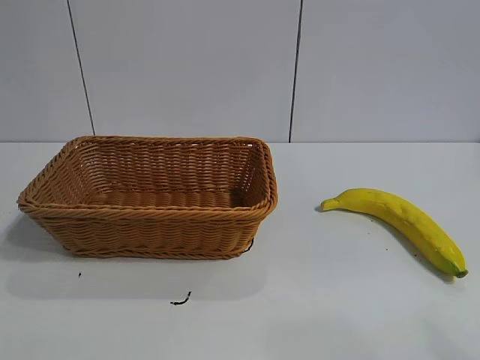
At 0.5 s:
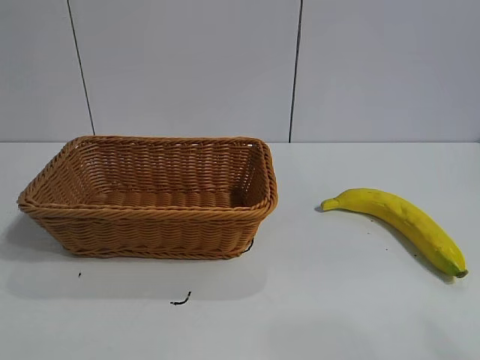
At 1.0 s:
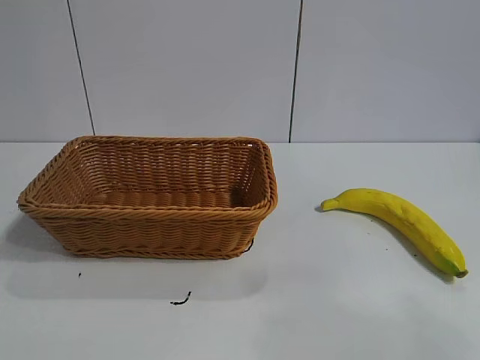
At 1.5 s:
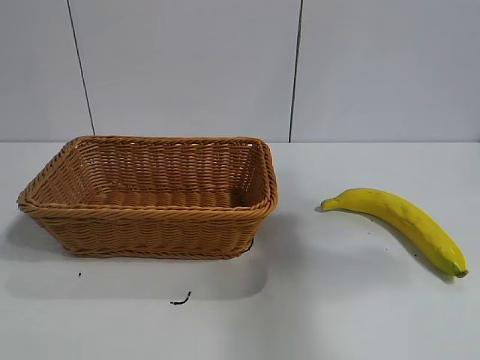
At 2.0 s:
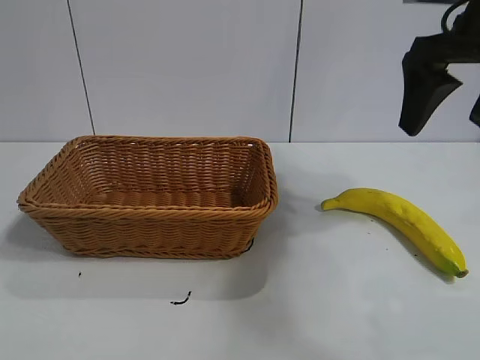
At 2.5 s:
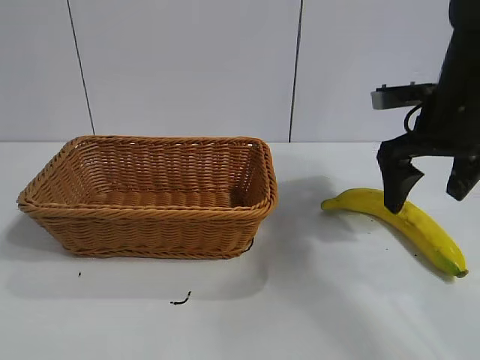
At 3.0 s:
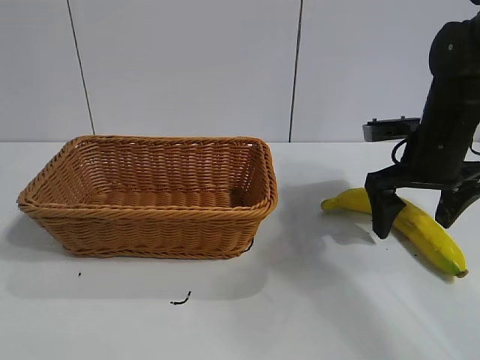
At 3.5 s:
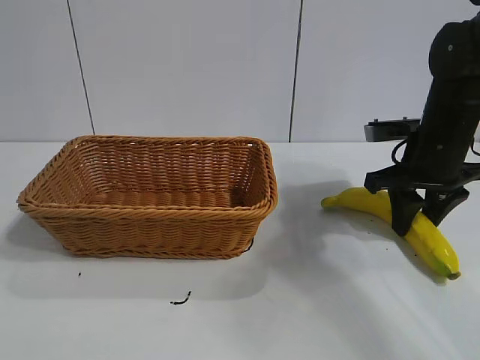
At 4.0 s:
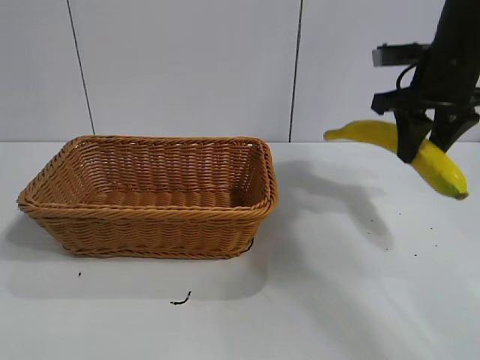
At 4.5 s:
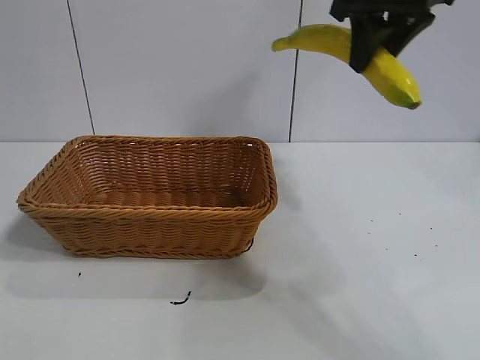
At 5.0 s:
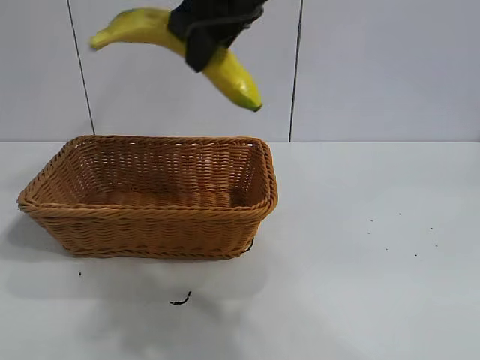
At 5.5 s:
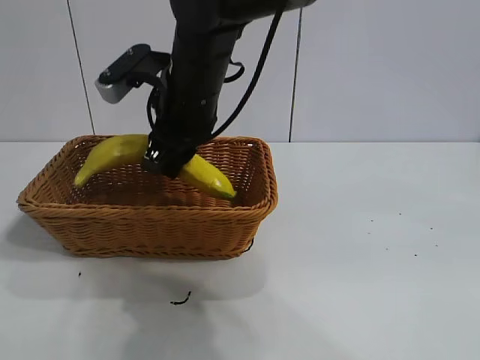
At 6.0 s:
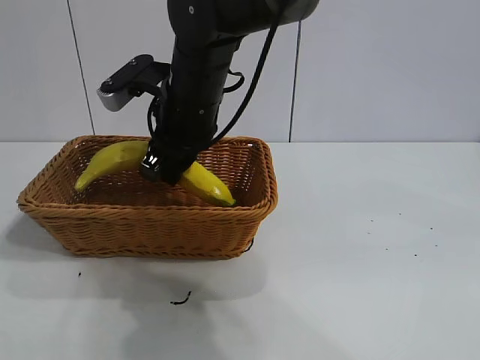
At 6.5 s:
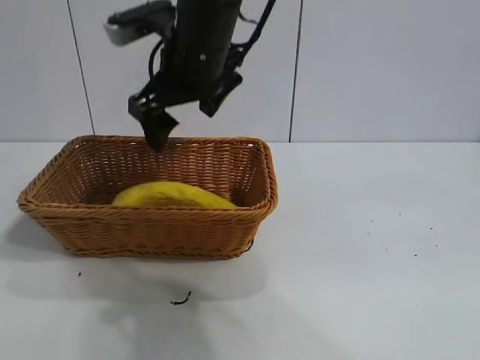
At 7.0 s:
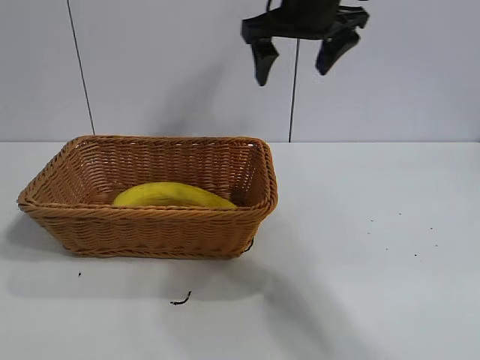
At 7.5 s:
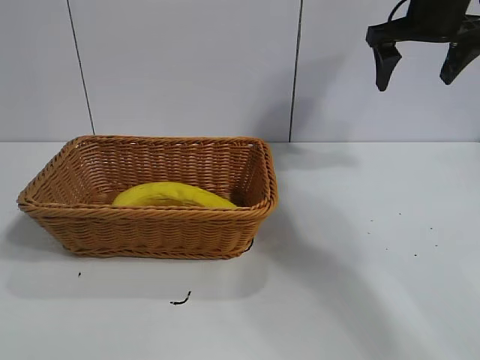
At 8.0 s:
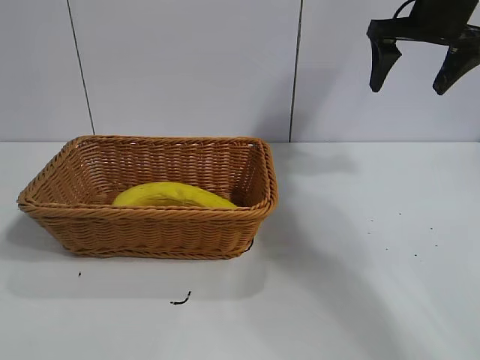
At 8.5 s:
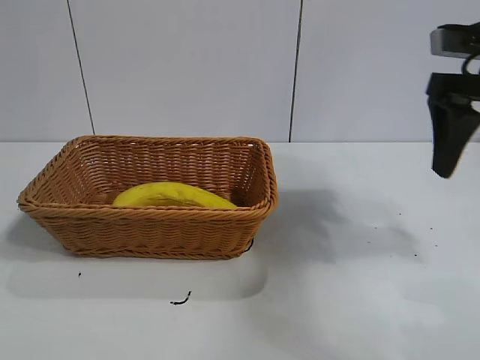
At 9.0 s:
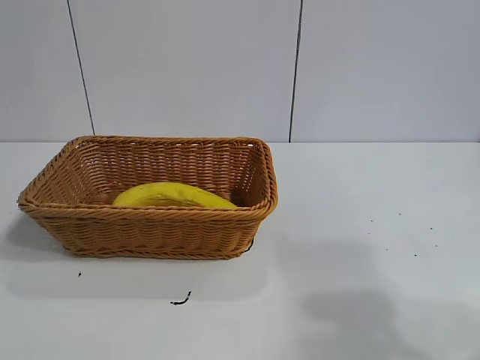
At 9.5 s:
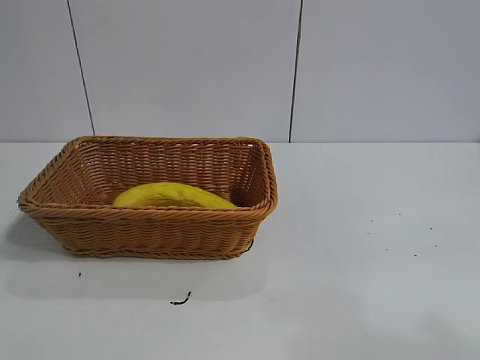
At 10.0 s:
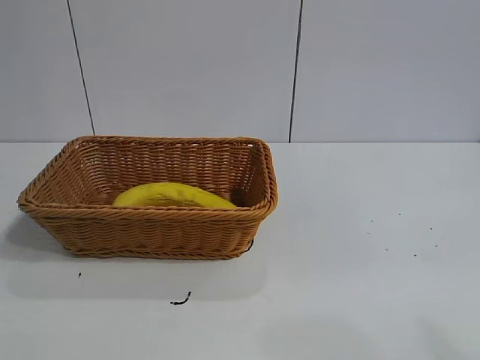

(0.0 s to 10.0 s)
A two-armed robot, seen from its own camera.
Task of the whole recording: pick up the banana and put it into the basket.
Step, 2.0 s - 3.5 s: Grasp the banana with right gripper.
Step, 4.0 s - 6.0 s: Place the banana in the basket with right gripper.
